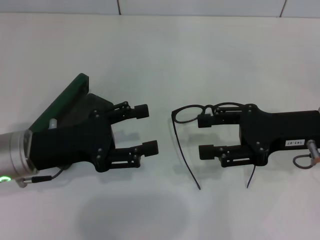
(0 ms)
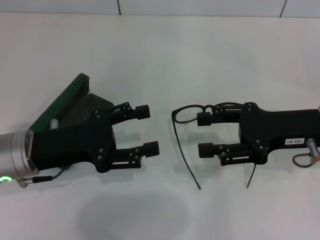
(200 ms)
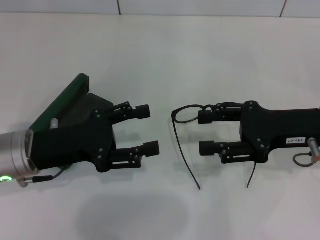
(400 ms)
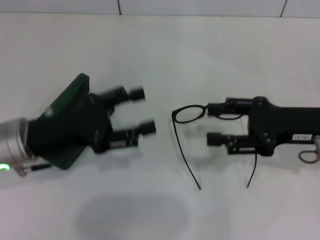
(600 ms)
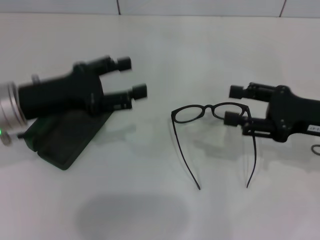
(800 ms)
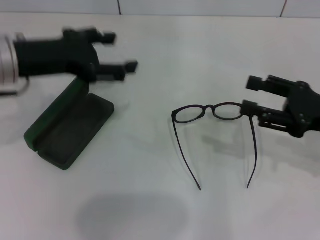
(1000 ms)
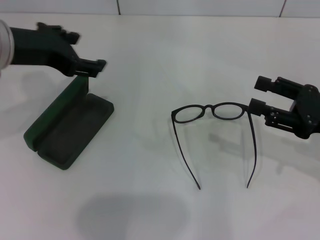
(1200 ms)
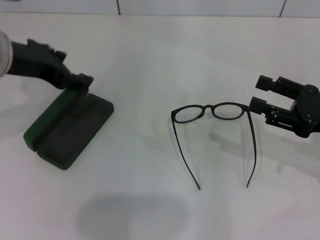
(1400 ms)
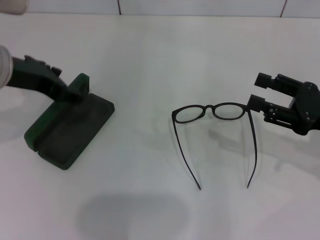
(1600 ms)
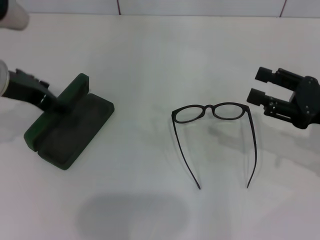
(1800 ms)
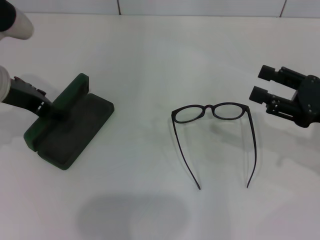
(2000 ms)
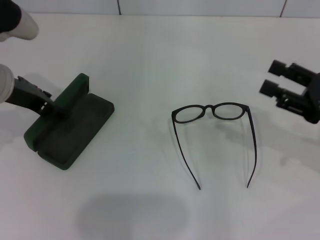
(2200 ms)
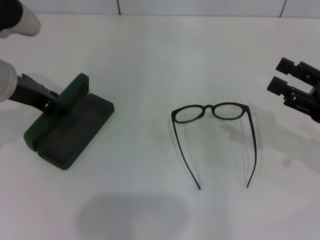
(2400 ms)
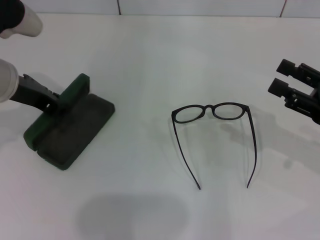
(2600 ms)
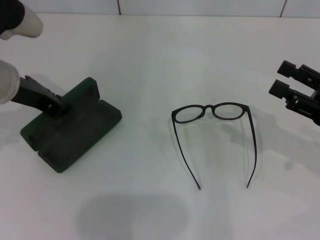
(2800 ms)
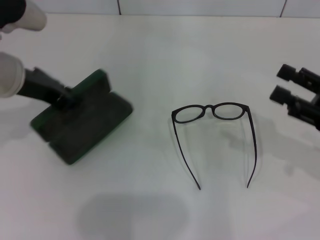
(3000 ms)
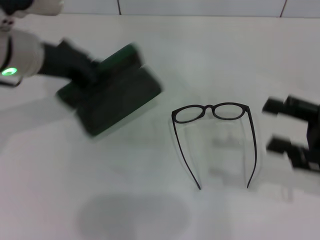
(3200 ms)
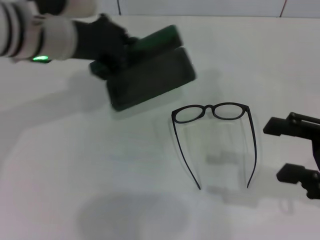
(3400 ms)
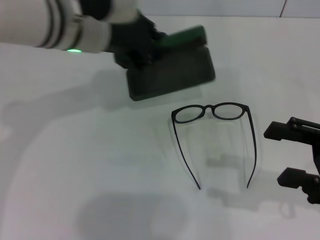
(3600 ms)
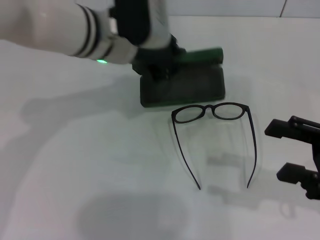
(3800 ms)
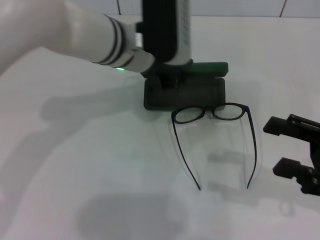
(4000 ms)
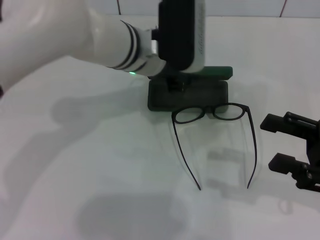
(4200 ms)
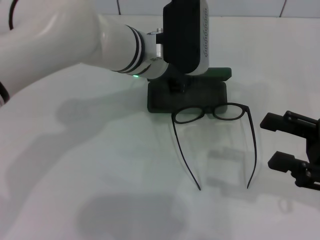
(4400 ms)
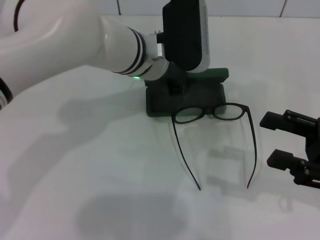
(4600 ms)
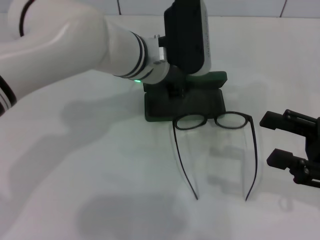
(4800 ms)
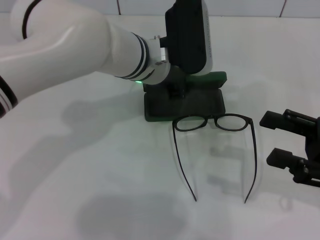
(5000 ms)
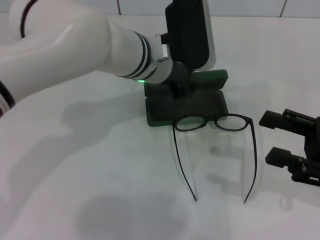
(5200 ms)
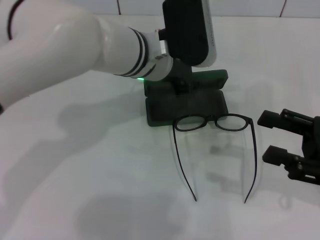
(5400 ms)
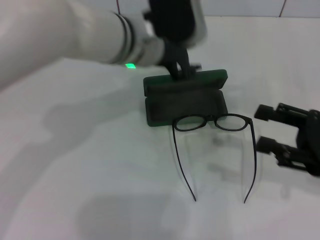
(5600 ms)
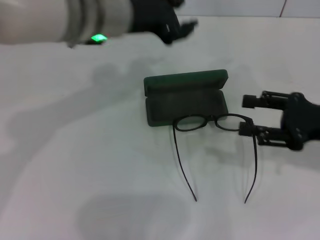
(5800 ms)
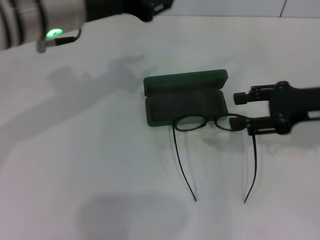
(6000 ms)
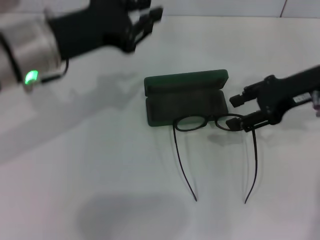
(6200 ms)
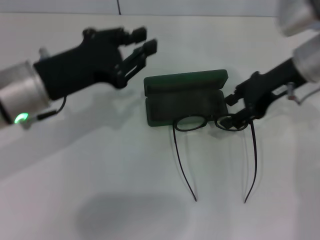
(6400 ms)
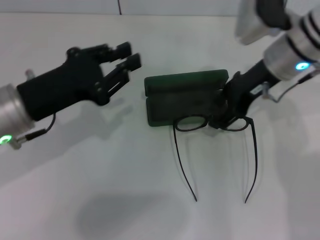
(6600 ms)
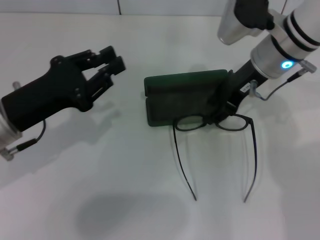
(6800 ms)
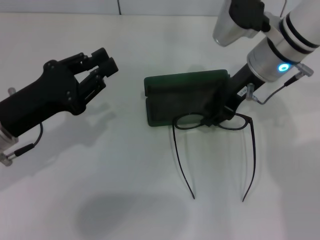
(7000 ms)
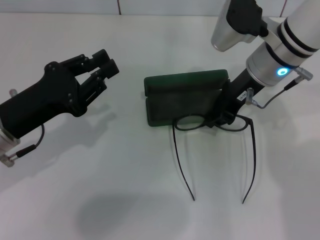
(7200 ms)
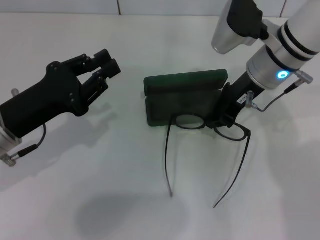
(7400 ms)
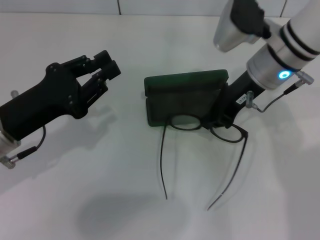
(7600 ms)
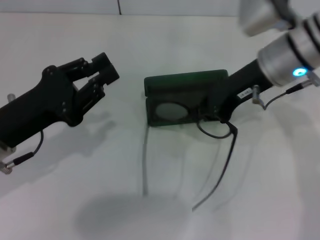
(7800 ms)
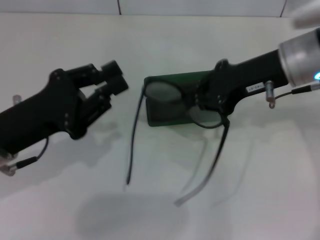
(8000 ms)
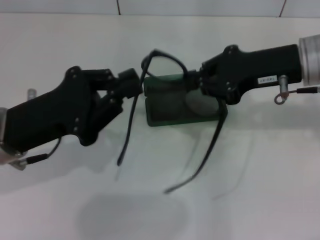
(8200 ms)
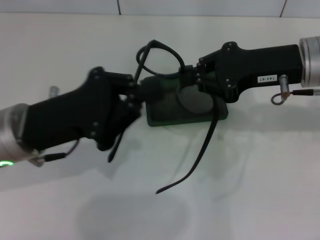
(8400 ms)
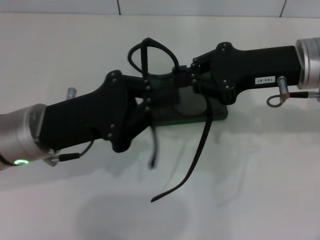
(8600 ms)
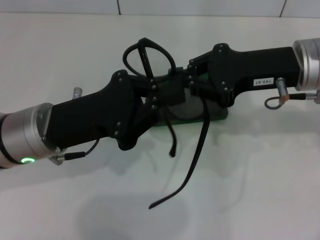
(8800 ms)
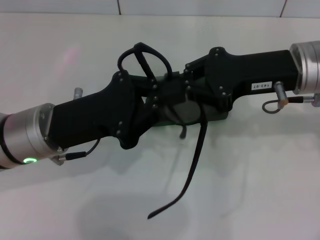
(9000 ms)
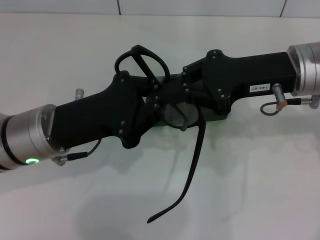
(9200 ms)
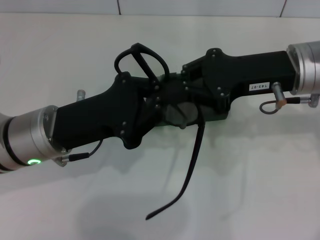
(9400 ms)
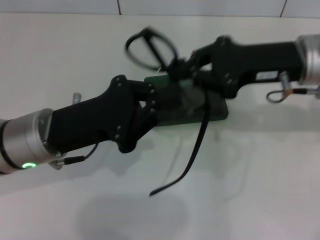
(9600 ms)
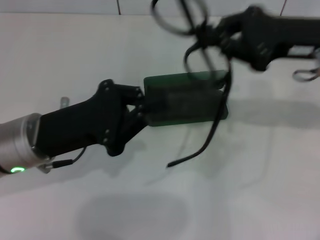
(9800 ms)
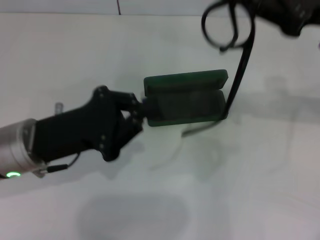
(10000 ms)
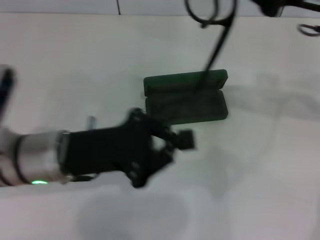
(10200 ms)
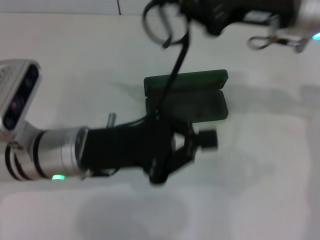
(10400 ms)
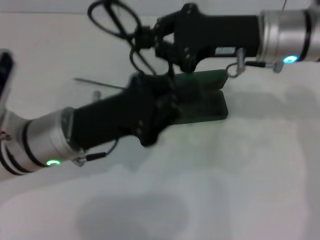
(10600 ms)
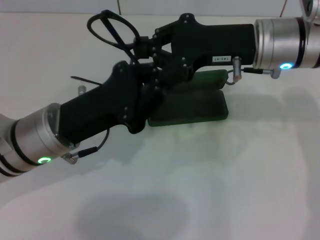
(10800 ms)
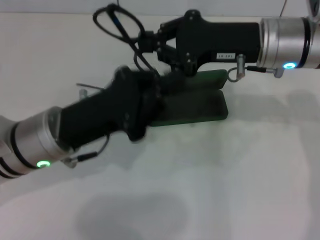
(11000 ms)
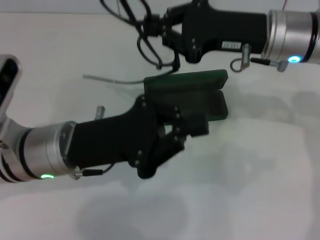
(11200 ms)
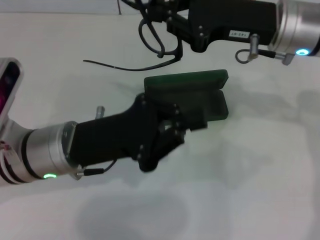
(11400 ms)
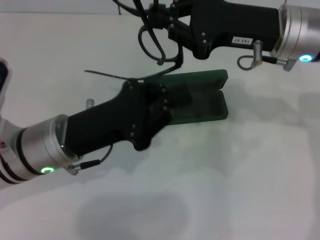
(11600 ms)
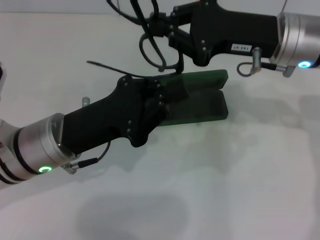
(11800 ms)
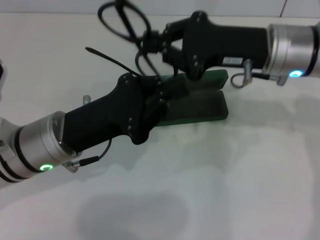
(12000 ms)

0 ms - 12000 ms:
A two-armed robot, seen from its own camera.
Step, 0 ms - 2400 ms: Grab the glasses case with your left hand.
Step, 2800 ms - 5400 ms: Place the glasses case in the center of the table with your left hand.
Step, 5600 ms - 7400 ms: Grab the eyeglass frame with your right hand.
0 ms - 1600 ms: The right gripper heads to the right, covering some 5 cm; the left gripper goes roughly 15 cm upward and forward.
1600 ms - 3000 ms: The left gripper closes.
3000 ms - 4400 ms: The left gripper shifts roughly 15 cm to the right.
4400 ms - 6000 ms: The left gripper heads to the left and upward, covering some 15 cm, while the right gripper heads forward, covering approximately 10 cm.
6000 ms - 7600 ms: The left gripper moves downward, to the left and backward, approximately 20 cm. The right gripper goes some 15 cm to the left and forward, and closes up.
7600 ms - 9000 ms: The right gripper shifts approximately 5 cm backward. Meanwhile the left gripper heads to the right, covering some 5 cm.

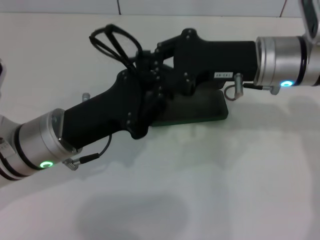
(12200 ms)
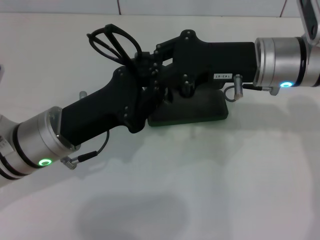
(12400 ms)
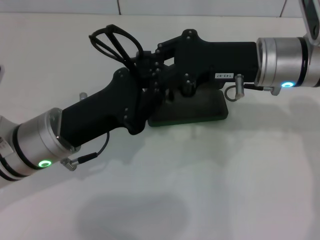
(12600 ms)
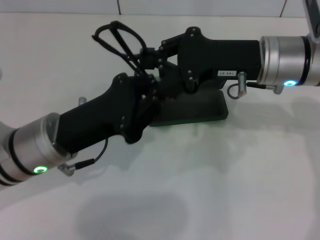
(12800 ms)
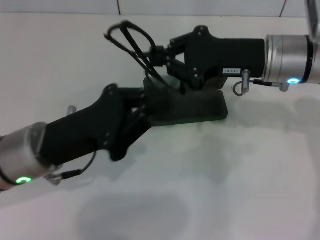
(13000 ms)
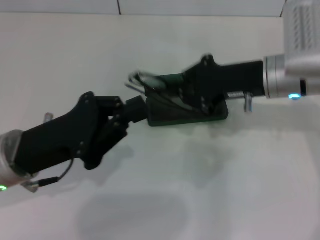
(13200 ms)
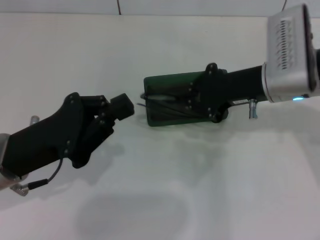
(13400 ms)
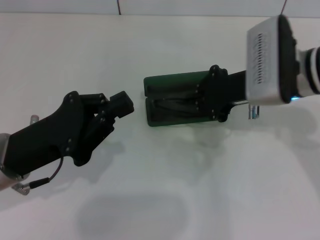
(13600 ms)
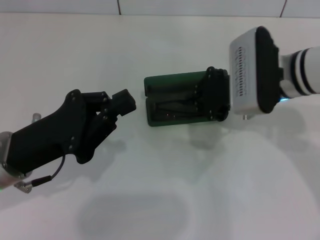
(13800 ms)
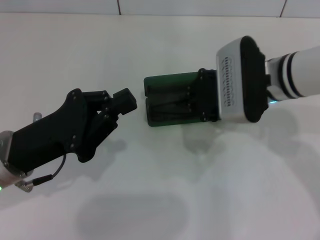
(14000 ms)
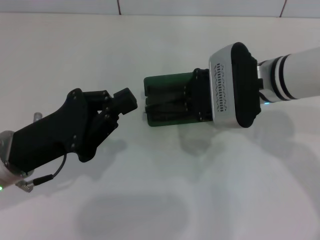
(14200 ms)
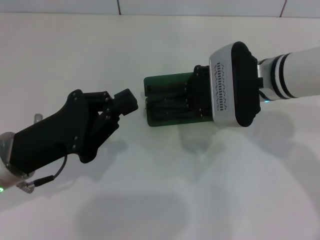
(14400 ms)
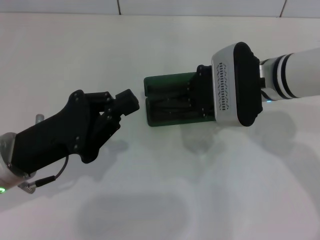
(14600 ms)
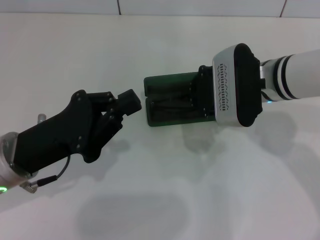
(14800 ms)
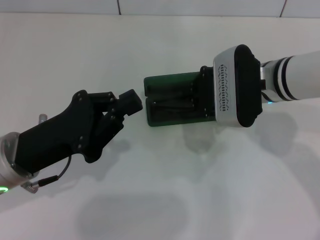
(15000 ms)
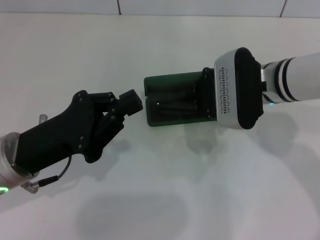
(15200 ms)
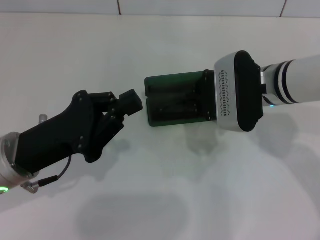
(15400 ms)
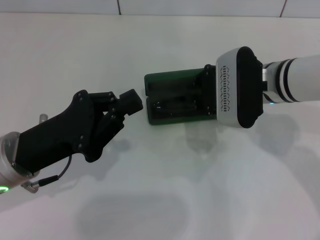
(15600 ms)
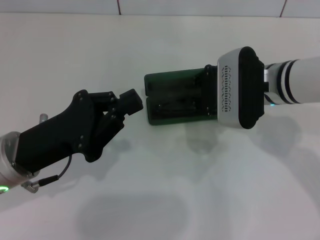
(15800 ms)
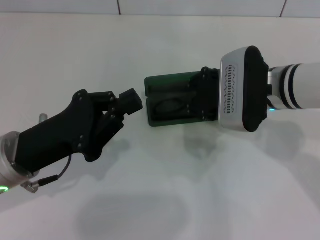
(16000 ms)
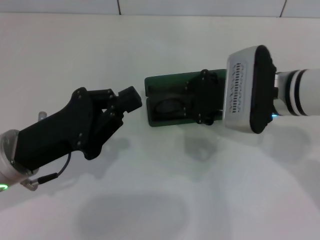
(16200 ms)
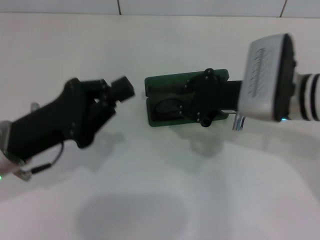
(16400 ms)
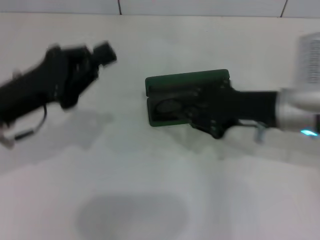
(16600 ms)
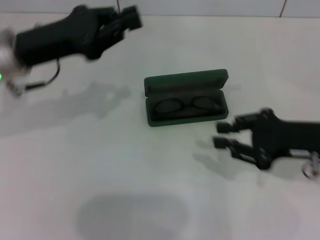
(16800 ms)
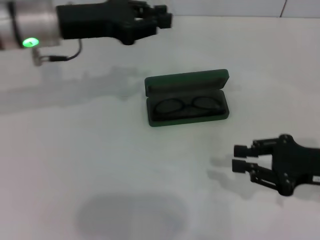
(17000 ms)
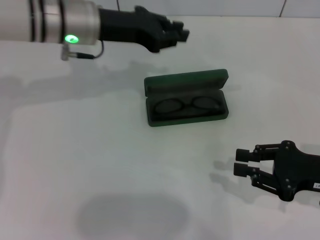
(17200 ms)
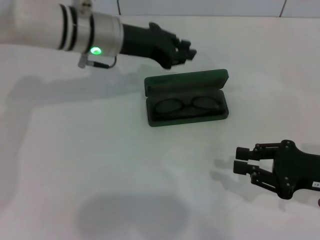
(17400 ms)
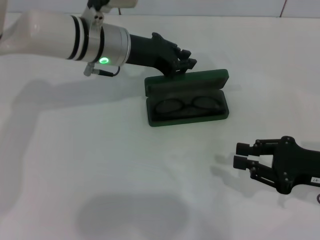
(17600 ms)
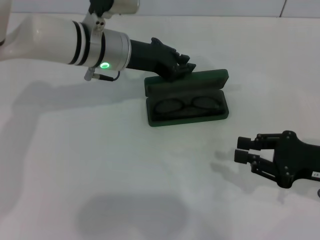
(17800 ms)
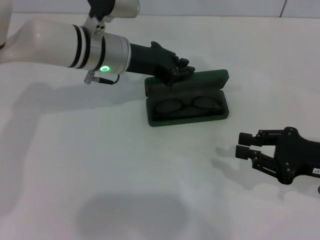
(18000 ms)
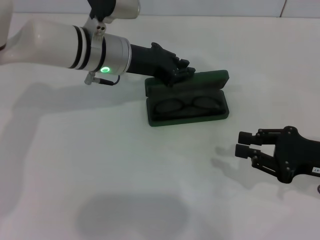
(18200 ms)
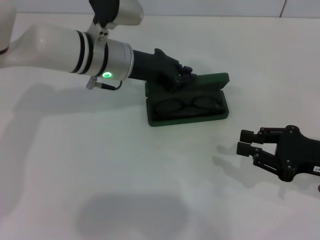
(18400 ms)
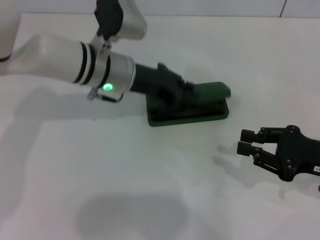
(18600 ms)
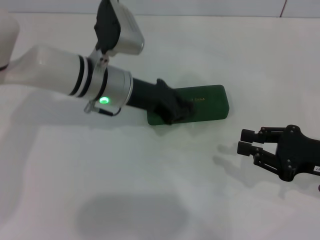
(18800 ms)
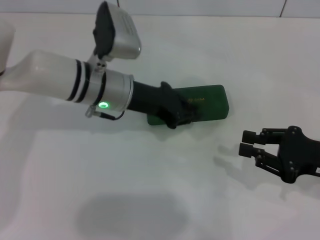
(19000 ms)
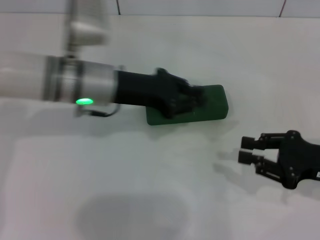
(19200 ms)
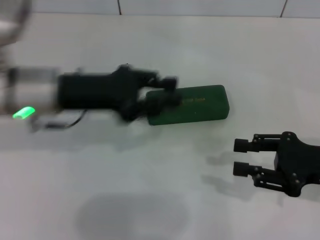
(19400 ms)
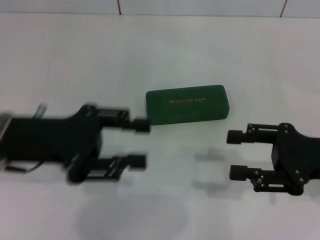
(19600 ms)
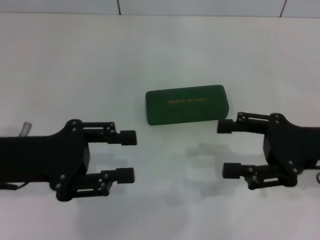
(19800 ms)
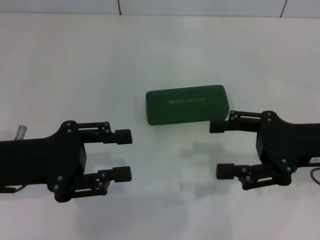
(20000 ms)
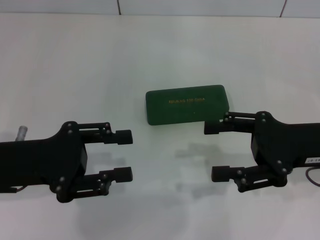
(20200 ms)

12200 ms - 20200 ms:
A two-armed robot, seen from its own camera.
Step, 12600 ms - 16400 ms: Put the glasses into the case with your right hand.
Step, 16600 ms - 18800 ms: Close the glasses case with your left hand.
12200 ms - 13800 ms: The left gripper moves to the left, approximately 5 cm.
13800 ms - 15400 ms: The grippers stay close to where they were, moving slightly.
15400 ms - 17000 ms: The right gripper moves to the right and backward, approximately 20 cm, and opens. The left gripper travels forward and upward by roughly 20 cm.
17000 ms - 18600 ms: The left gripper is displaced to the right and downward by about 10 cm.
18600 ms - 20200 ms: The right gripper travels upward by roughly 5 cm, and opens its fingers. The left gripper travels backward and to the left by about 20 cm, and opens its fingers.

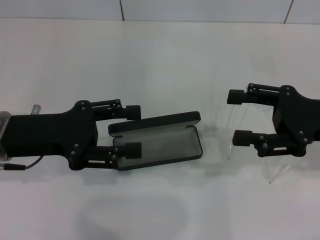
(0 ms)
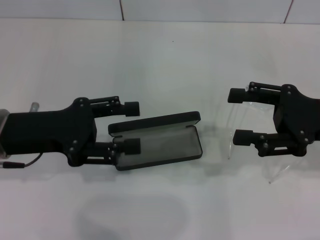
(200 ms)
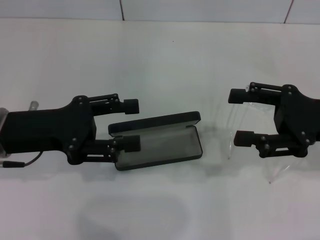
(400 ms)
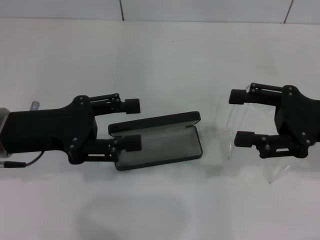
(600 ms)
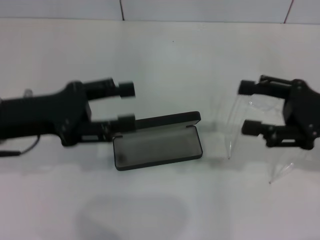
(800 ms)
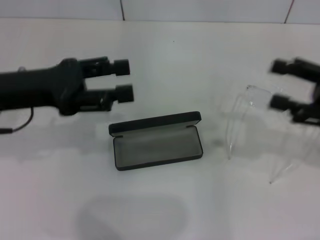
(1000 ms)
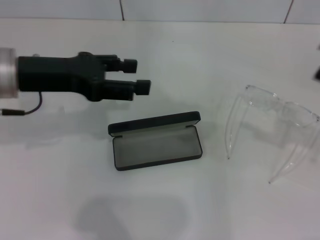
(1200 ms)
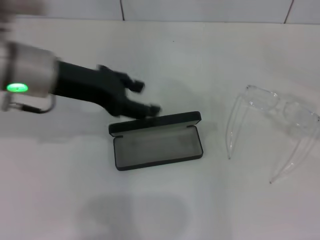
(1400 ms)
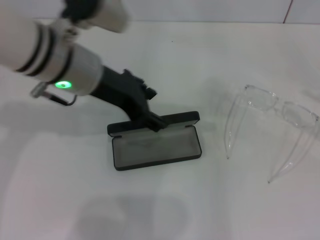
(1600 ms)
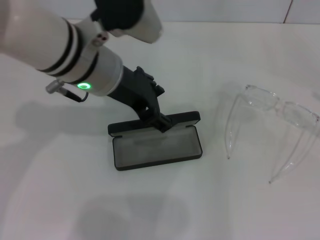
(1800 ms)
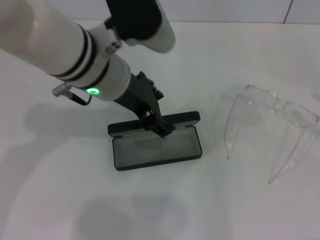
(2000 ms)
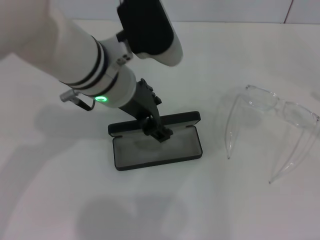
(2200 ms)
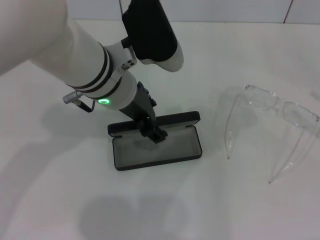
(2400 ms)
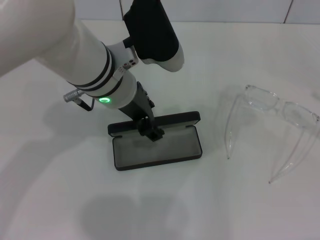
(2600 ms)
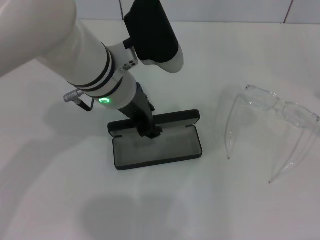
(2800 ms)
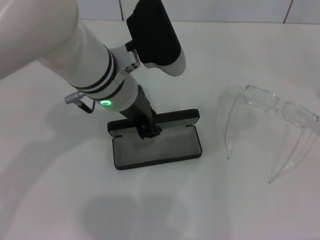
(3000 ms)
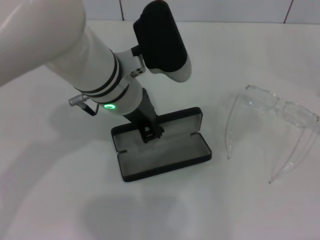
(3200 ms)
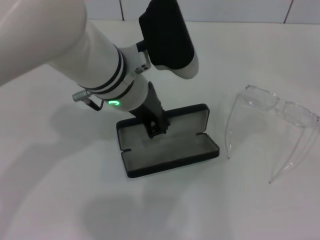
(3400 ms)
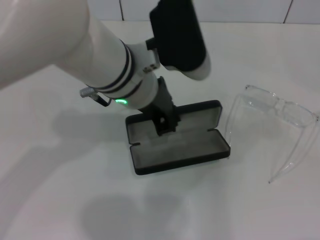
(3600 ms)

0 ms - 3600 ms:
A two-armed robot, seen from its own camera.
Step, 0 ms - 3000 ms: Grab the glasses case with your left hand.
0 ms - 1800 ms: The left gripper travels to the right, upward and forward by roughly 15 cm; the right gripper travels to the right and backward by roughly 15 cm.
1800 ms - 3600 ms: The left gripper changes place by some 5 cm, and closes up.
